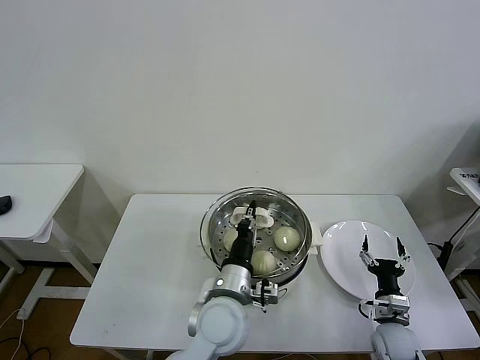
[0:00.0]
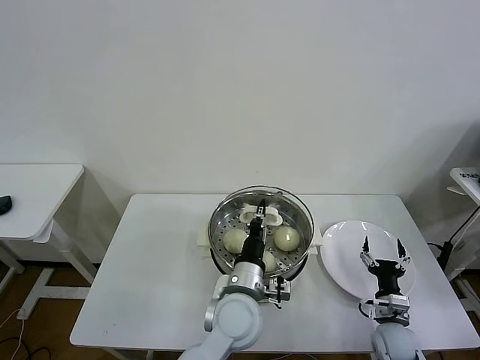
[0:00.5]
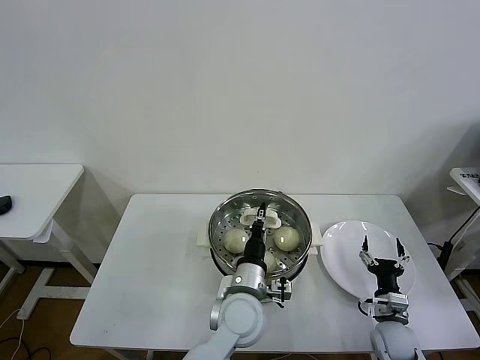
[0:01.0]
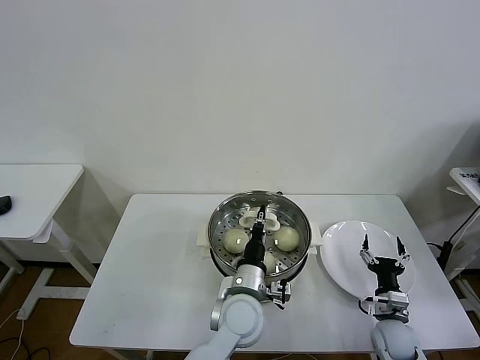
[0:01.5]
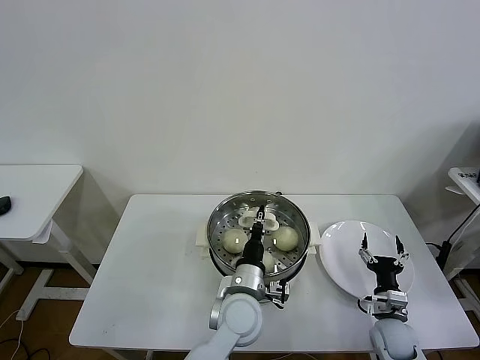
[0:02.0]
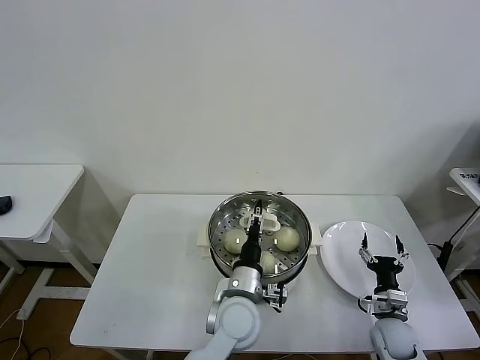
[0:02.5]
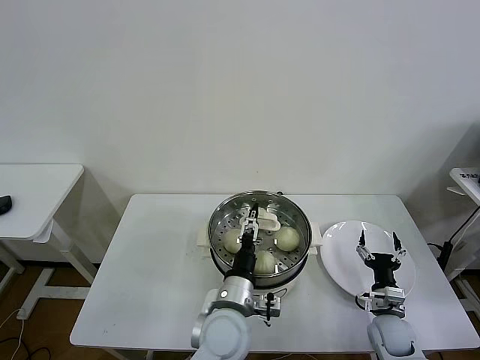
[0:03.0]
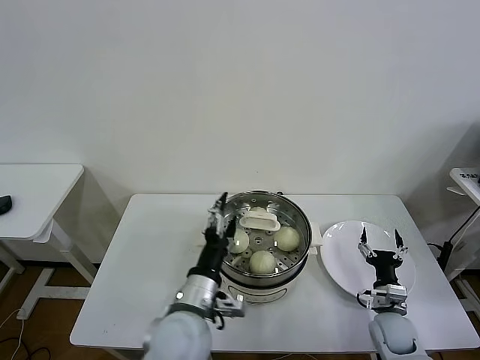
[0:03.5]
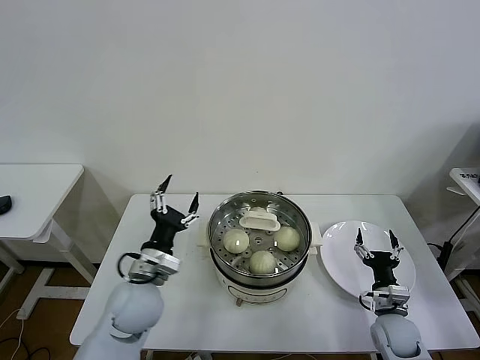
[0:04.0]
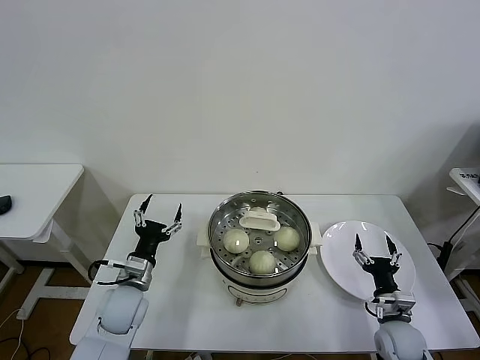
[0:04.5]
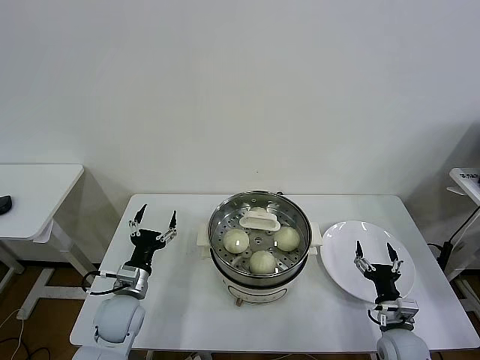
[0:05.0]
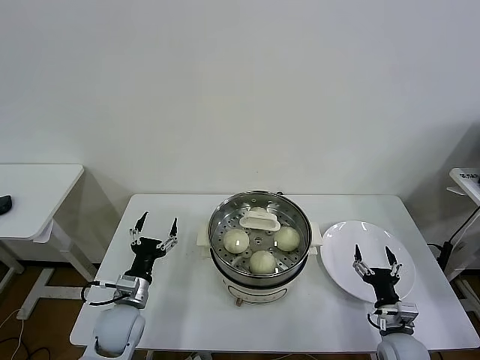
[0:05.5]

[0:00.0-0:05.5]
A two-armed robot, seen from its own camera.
Task of the whole recording: take steamed baozi put them in steamer then cover it.
Step, 0:00.0 to 0:02.0: Place the pot lid on the steamer with left gripper.
0:00.0 to 0:02.0: The left gripper shifts by roughly 5 cm.
0:02.0 to 0:03.5: The left gripper goes roughly 10 cm to the left, upward and backward, and opens.
0:03.5 to 0:05.5: The right gripper ends up some 5 cm from where it was; the left gripper is displaced to the left and downward by approximately 20 cm.

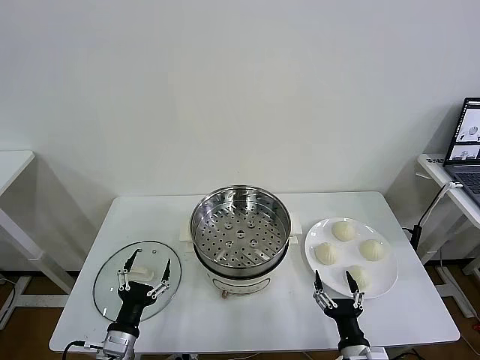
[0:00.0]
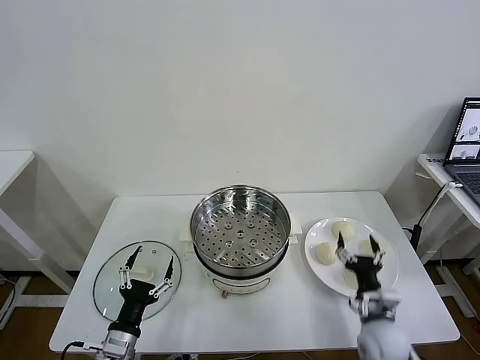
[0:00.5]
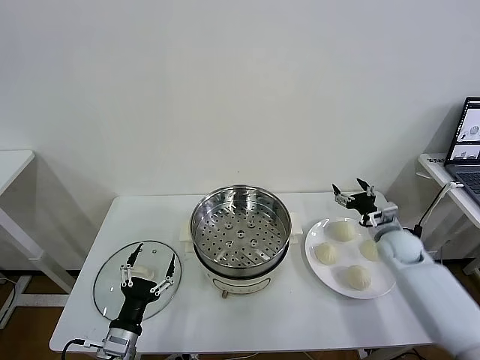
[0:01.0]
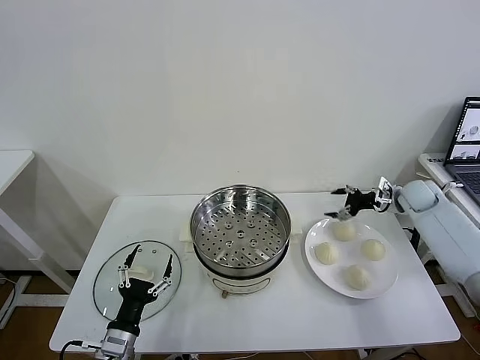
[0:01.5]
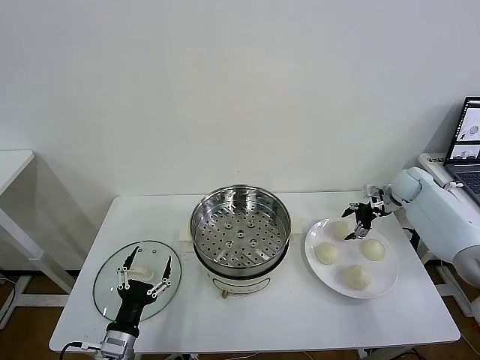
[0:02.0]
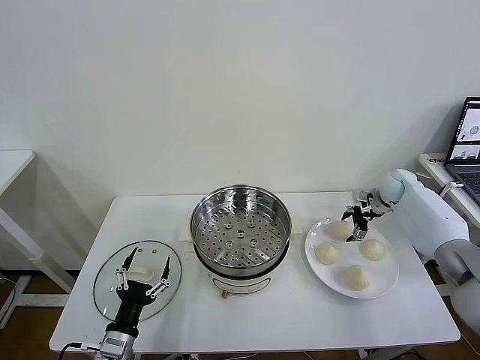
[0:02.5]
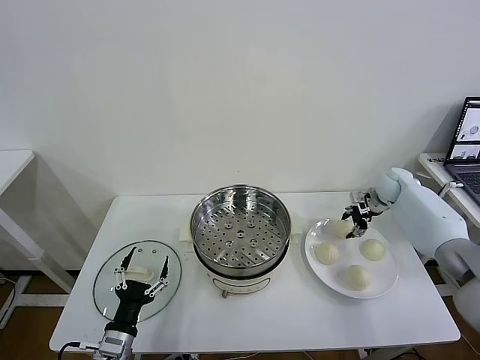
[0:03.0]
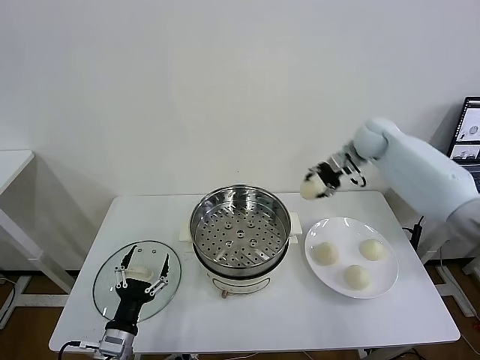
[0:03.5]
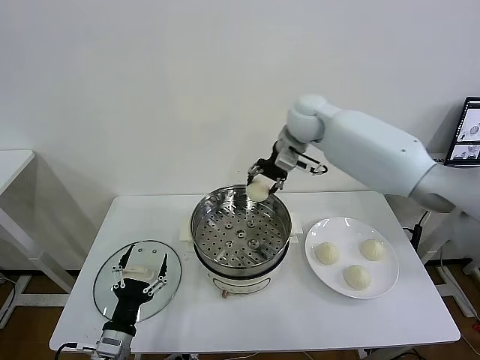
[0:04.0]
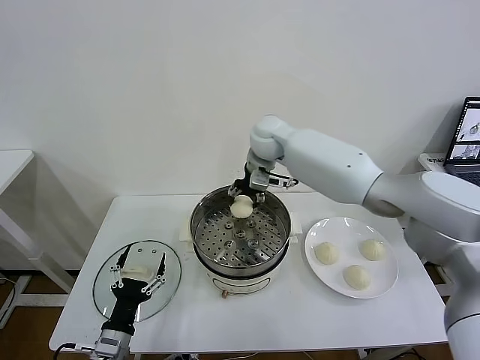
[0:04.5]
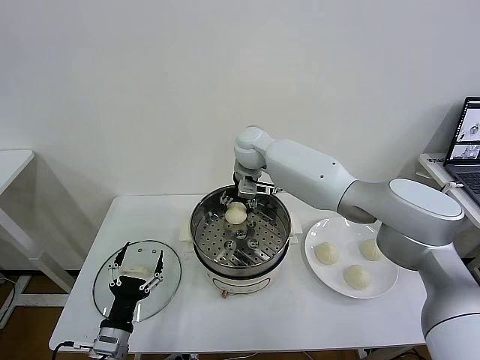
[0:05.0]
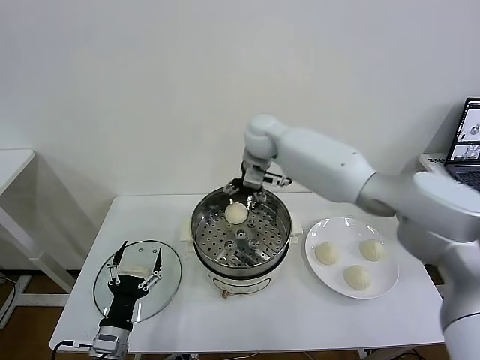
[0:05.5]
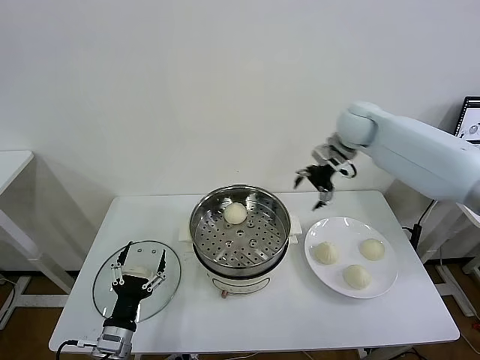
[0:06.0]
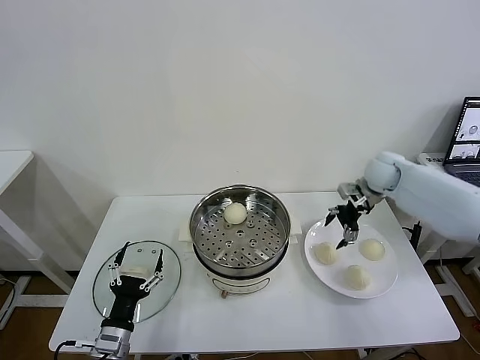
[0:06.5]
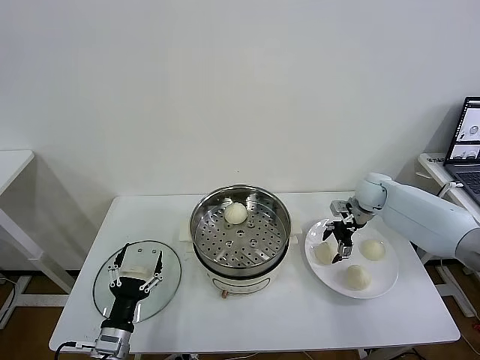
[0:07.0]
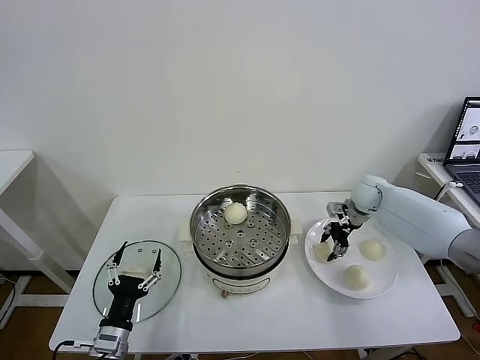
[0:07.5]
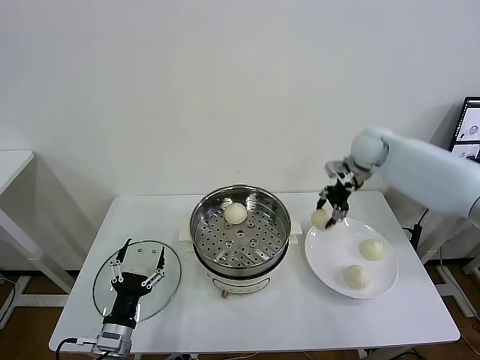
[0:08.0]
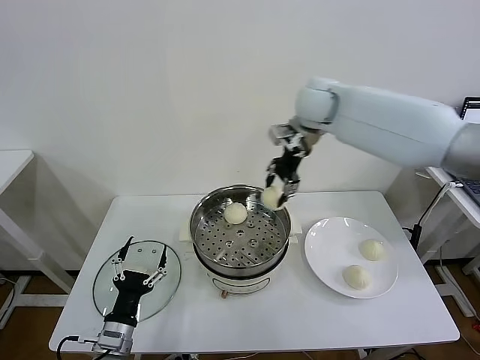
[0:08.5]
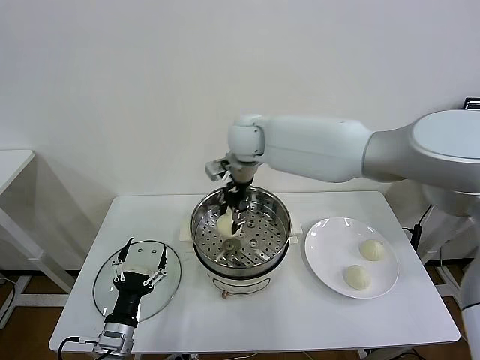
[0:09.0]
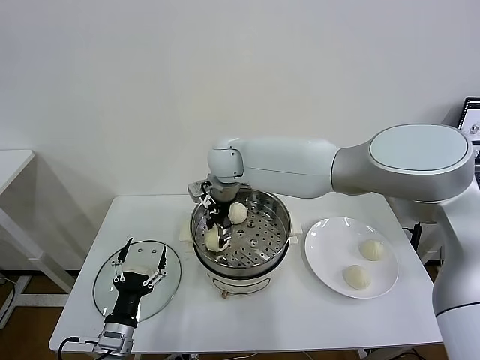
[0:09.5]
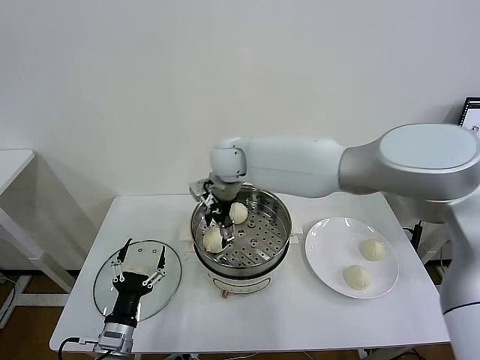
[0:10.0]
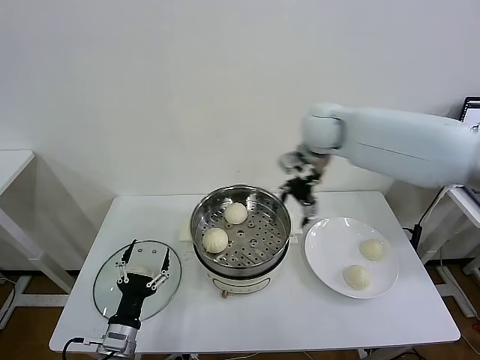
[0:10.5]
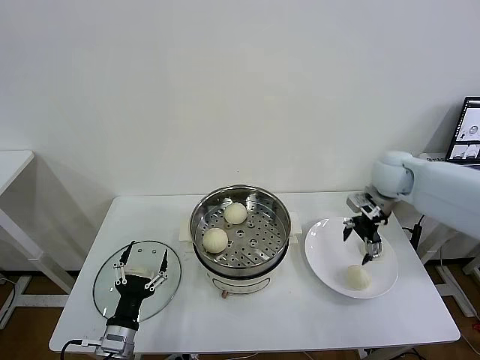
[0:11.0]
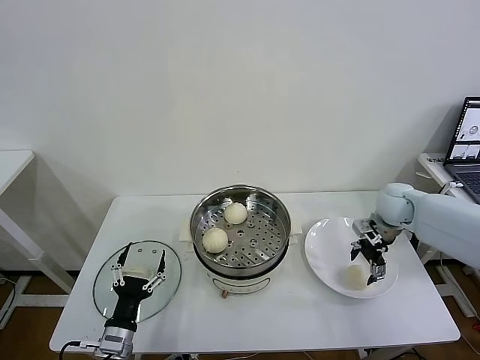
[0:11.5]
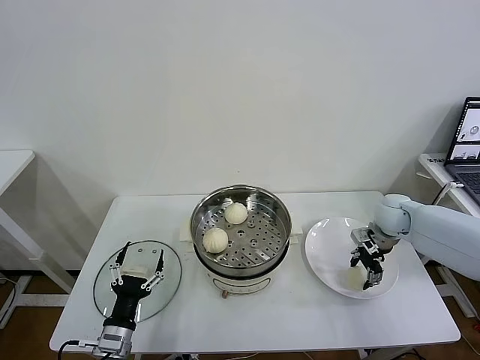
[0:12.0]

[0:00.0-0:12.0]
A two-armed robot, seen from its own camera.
Task of the whole recording: take steamed baozi put them in steamer then cover it.
Step, 0:00.0 to 0:02.5: Grasp the baozi in the plate with right gripper.
Step, 0:03.0 to 0:05.0: Place the baozi on the steamer with right gripper.
Step, 0:05.5 to 0:07.0: Grasp the baozi in the plate with right gripper.
Step, 0:07.5 to 0:09.5: Place the baozi on the steamer with right gripper.
Step, 0:10.0 to 0:12.0: Grasp the baozi in the plate with right gripper.
0:02.0 to 0:04.0: The right gripper travels to the left and upward by about 40 cm, and closes.
0:04.0 to 0:06.0: The right gripper goes about 15 cm to the right, and opens up.
0:06.0 to 0:08.0: The right gripper moves some 15 cm downward and comes back, and closes.
0:08.0 to 0:10.0: The right gripper moves to the left, approximately 30 cm, and opens up.
0:10.0 to 0:12.0: The right gripper goes about 40 cm to the right and downward, and closes.

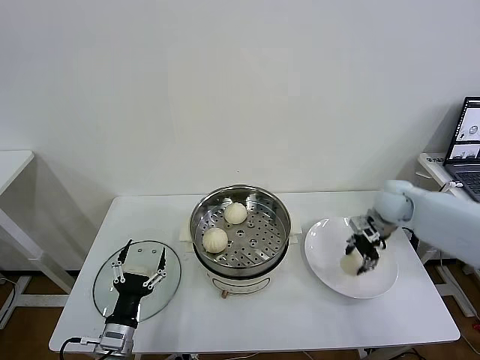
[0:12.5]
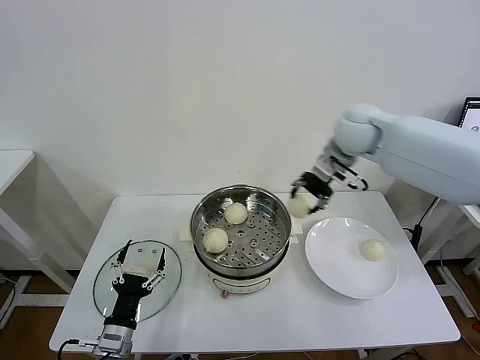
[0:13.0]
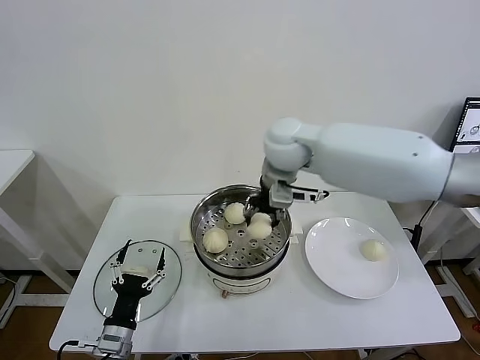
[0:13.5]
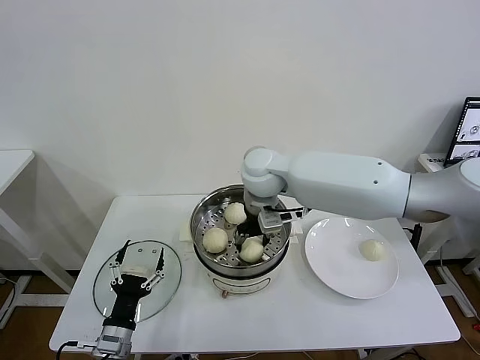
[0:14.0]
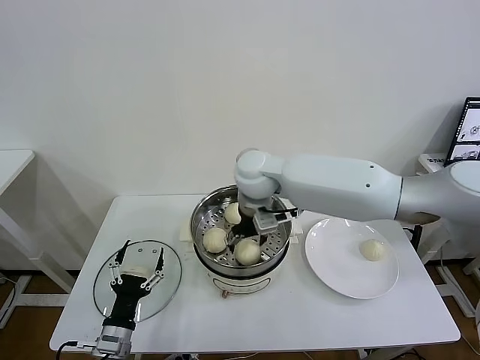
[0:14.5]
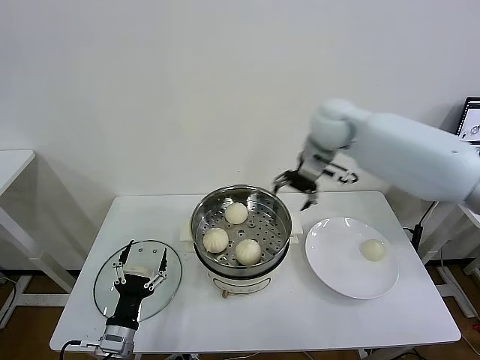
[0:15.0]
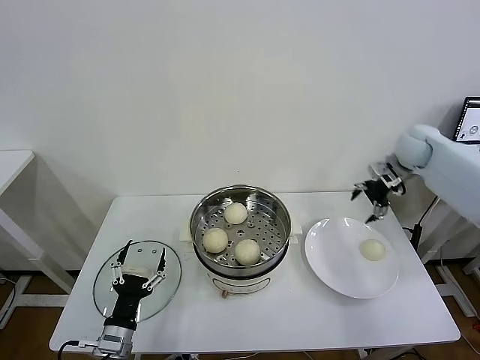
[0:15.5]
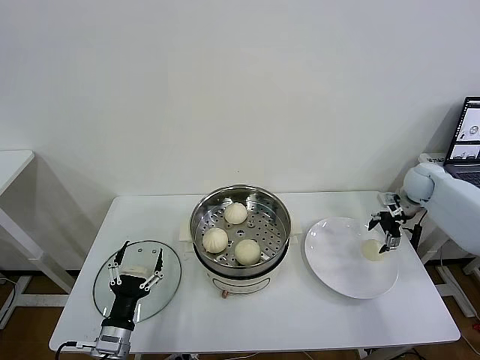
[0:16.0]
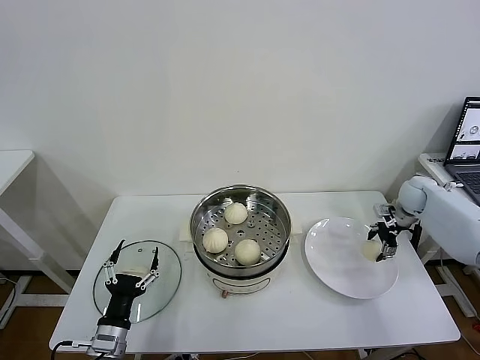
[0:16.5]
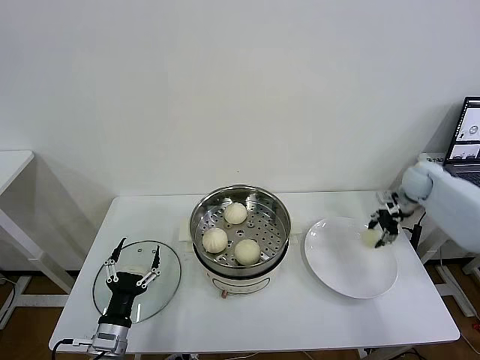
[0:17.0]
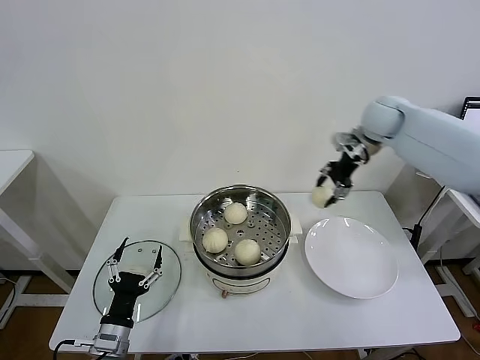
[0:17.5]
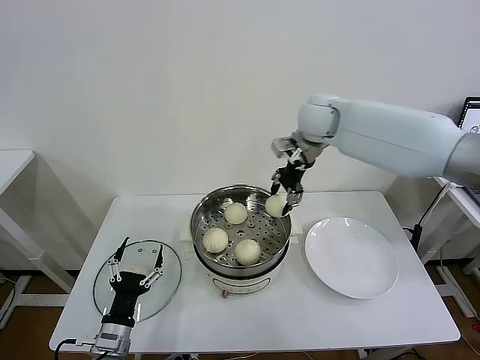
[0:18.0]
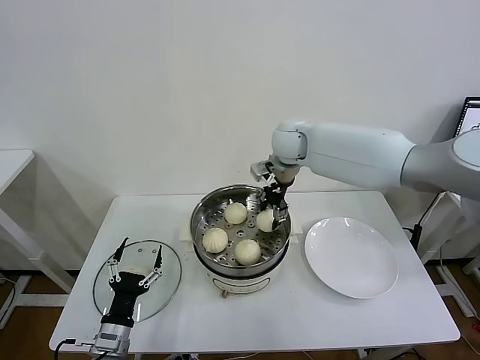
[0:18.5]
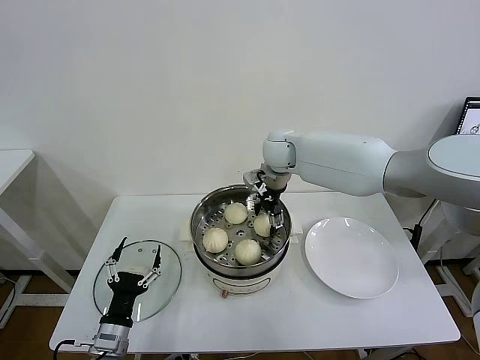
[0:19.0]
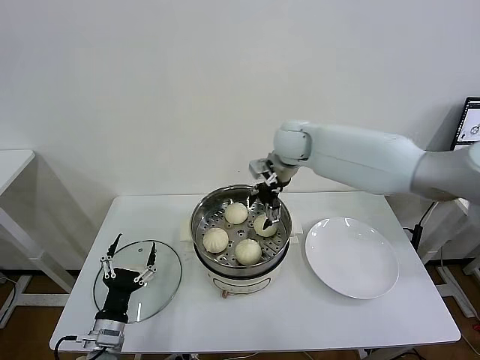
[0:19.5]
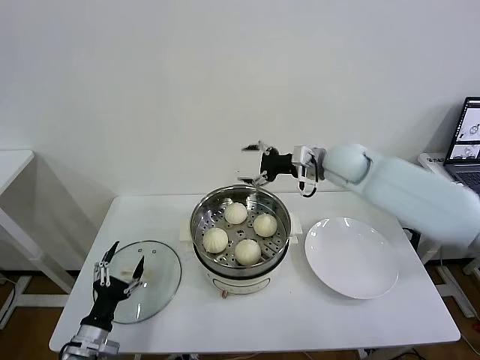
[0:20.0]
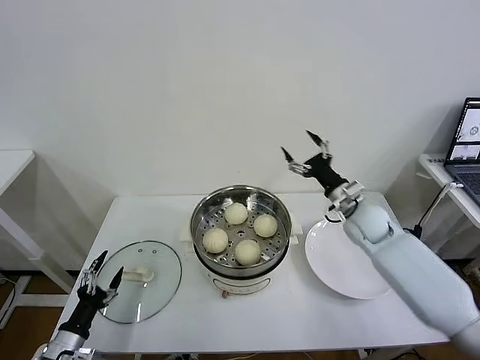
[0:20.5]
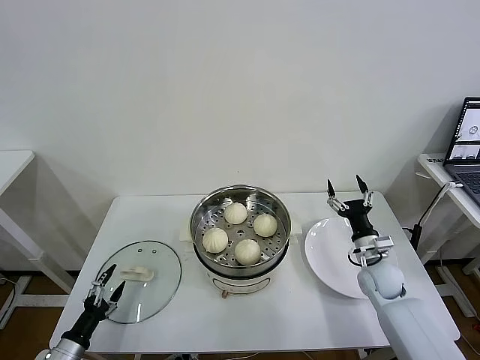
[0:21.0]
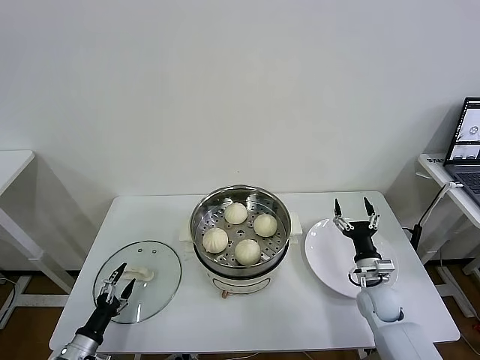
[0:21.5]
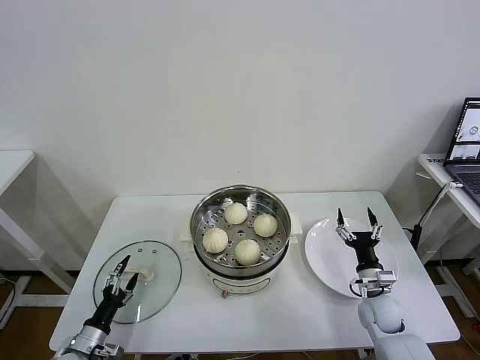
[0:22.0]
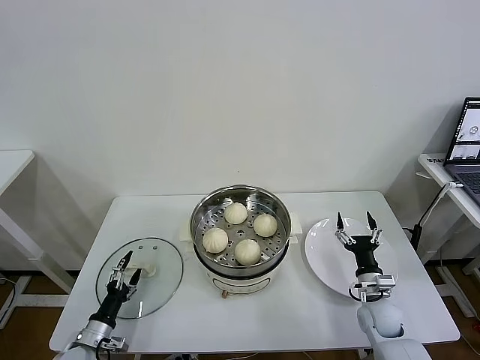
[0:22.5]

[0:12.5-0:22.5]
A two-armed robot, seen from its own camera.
Task of the whole recording: take steamed baozi put them in steamer then cover it.
Step, 0:12.5 to 0:14.0: Place the baozi on the steamer with right gripper.
Step, 0:14.5 to 0:16.5: Grasp the baozi in the plate with right gripper.
Step, 0:17.0 to 0:19.0: Place the baozi on the steamer with right gripper.
0:12.5 to 0:14.5: The right gripper travels to the left by roughly 35 cm, and opens its fingers.
0:14.5 to 0:16.5: The right gripper shifts about 40 cm to the right.
0:16.5 to 0:18.5: The right gripper moves to the left and upward, some 40 cm, and closes.
0:18.5 to 0:20.5: The left gripper is displaced to the left by some 10 cm. The right gripper travels to the right, downward and backward by some 25 cm, and opens its fingers.
0:20.5 to 0:22.5: The right gripper travels downward and backward by about 25 cm. The left gripper goes roughly 5 cm downward.
